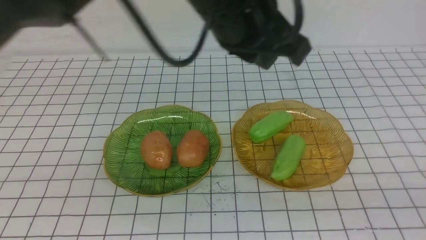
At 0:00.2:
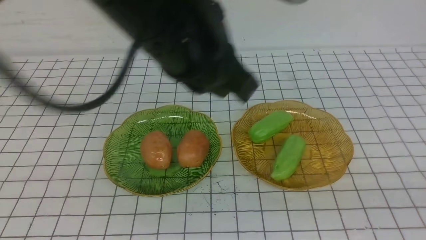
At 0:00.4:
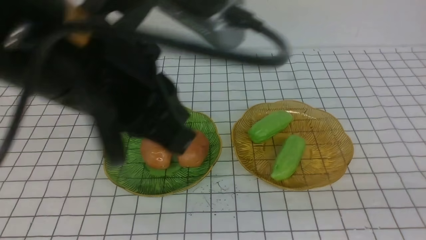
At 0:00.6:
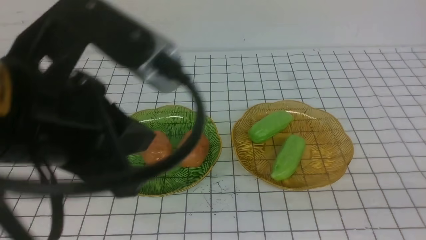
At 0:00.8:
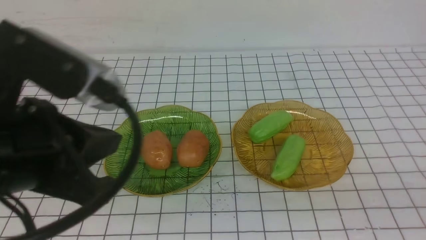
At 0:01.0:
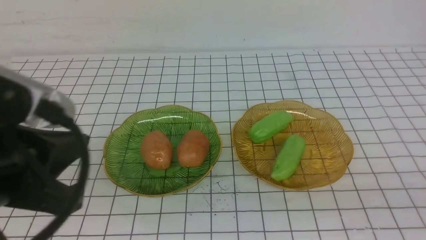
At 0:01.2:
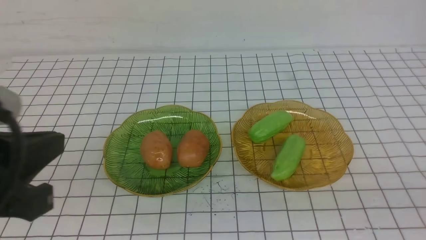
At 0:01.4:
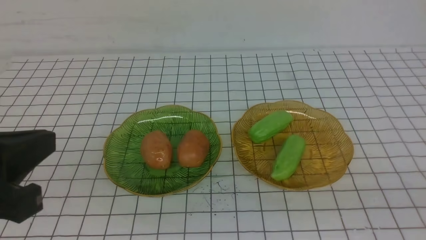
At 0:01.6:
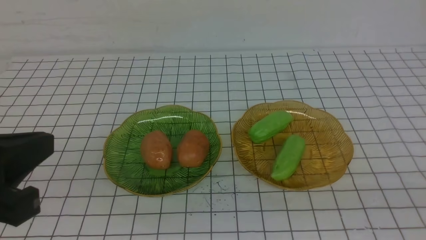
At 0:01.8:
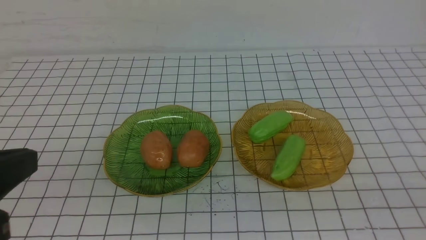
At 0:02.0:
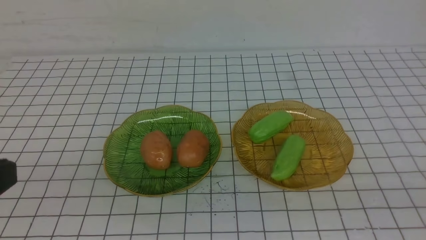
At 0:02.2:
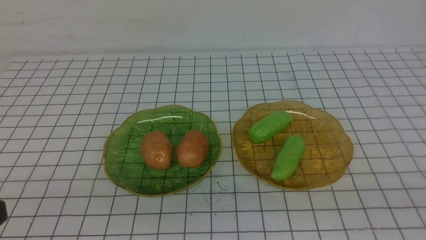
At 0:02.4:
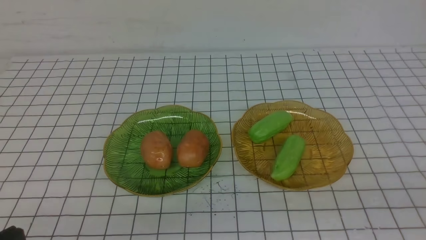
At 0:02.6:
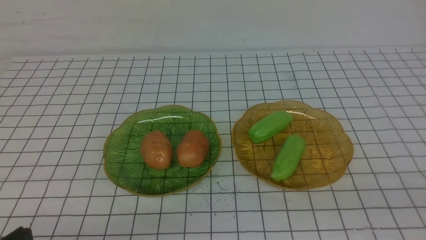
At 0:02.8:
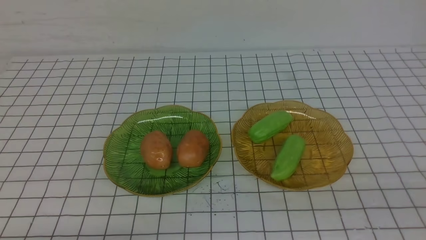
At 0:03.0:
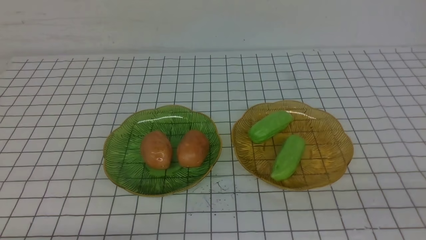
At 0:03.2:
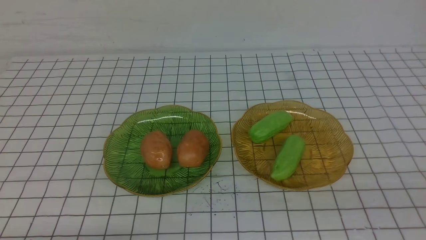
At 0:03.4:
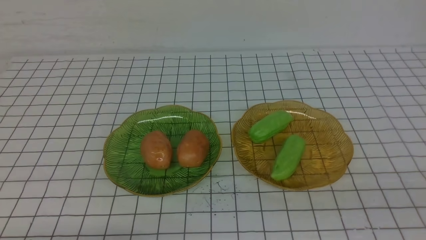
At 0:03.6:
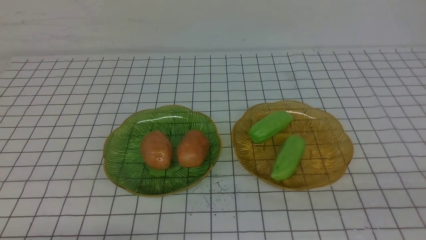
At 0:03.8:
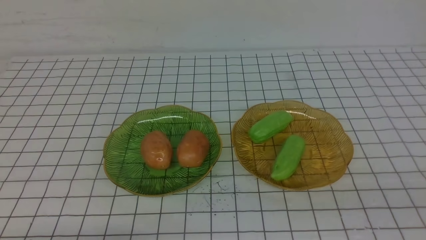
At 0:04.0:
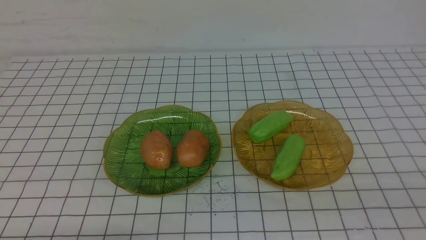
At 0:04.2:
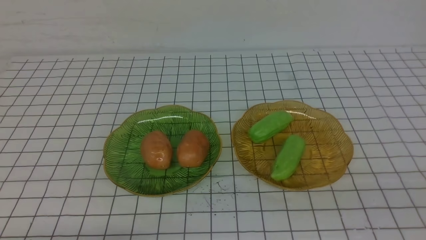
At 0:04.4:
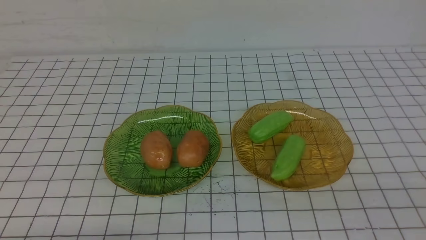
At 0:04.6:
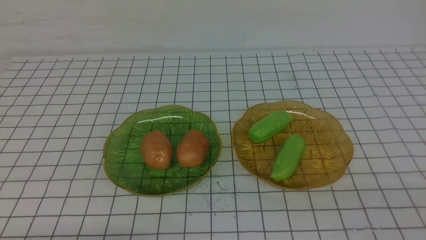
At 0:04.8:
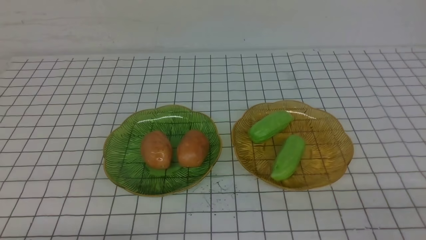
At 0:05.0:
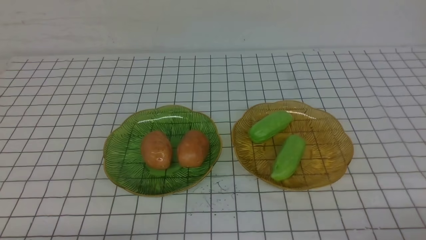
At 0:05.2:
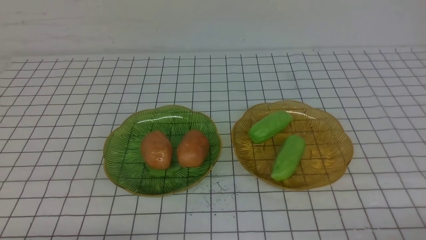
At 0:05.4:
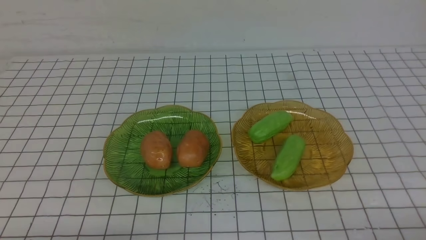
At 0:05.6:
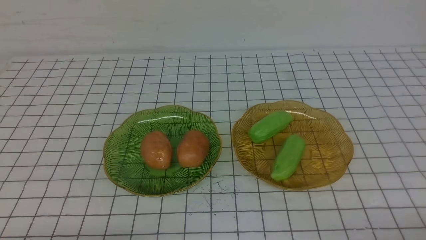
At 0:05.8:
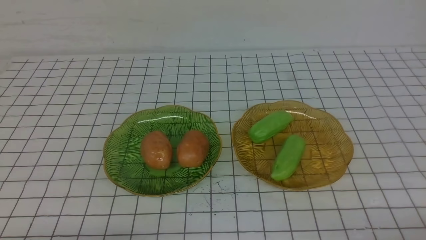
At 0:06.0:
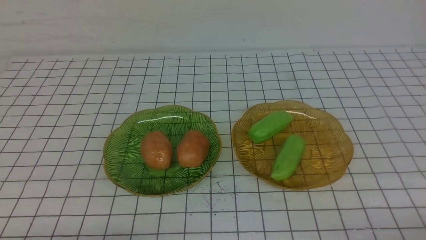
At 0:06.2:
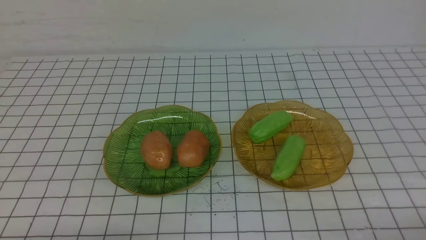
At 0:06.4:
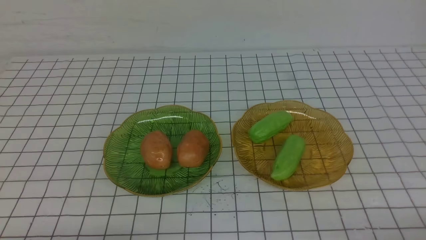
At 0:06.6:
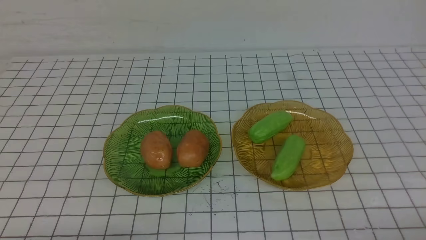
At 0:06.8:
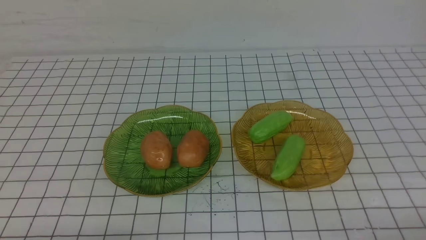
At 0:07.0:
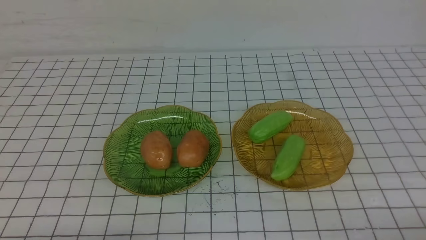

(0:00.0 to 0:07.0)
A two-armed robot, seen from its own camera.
0:00.0 - 0:01.4: The left gripper travels to the left and backward by approximately 30 cm.
0:01.4 - 0:02.8: The left gripper heads downward, covering about 15 cm.
0:05.6 - 0:07.0: Both grippers stay put.
